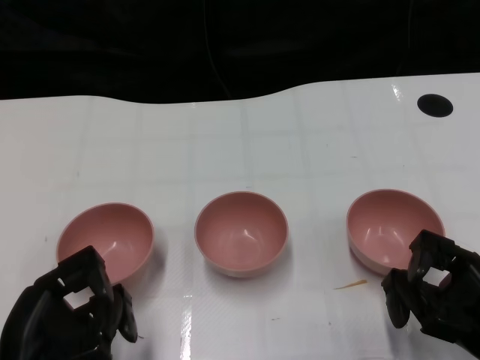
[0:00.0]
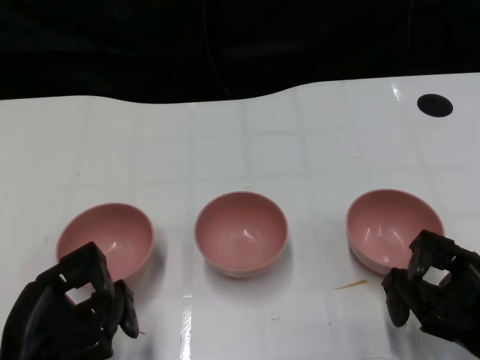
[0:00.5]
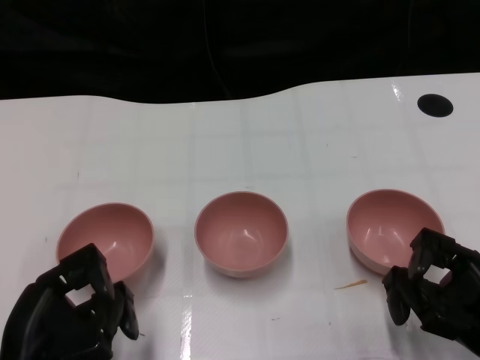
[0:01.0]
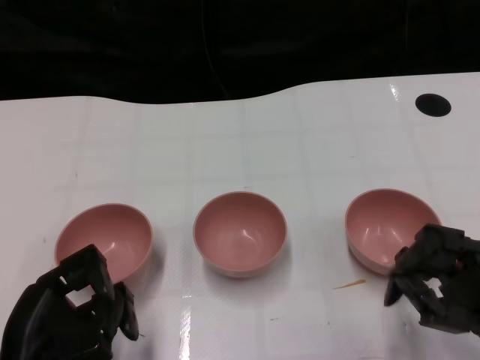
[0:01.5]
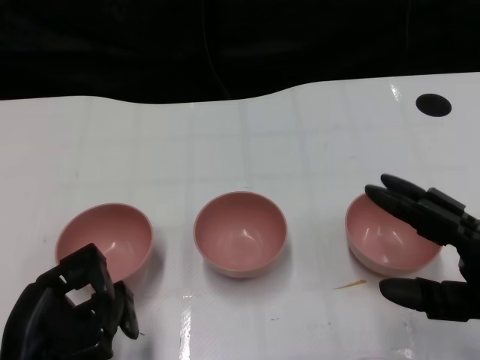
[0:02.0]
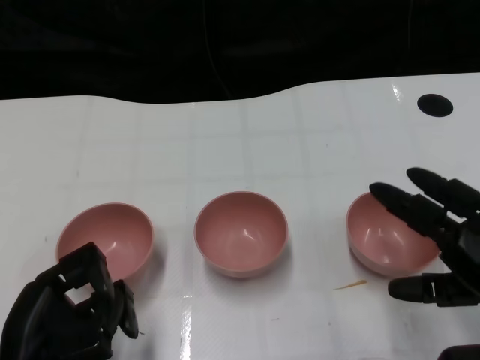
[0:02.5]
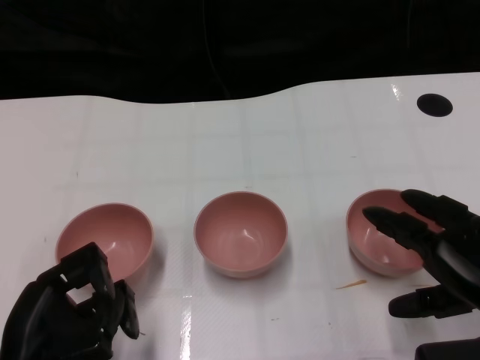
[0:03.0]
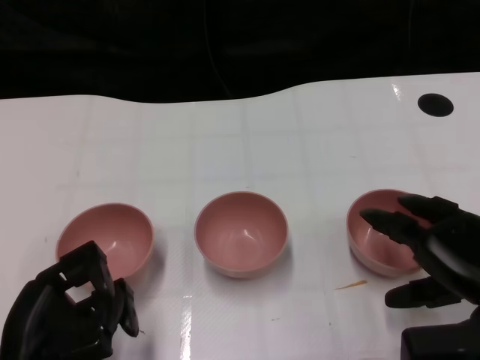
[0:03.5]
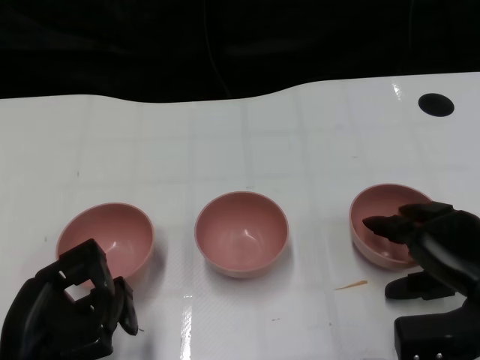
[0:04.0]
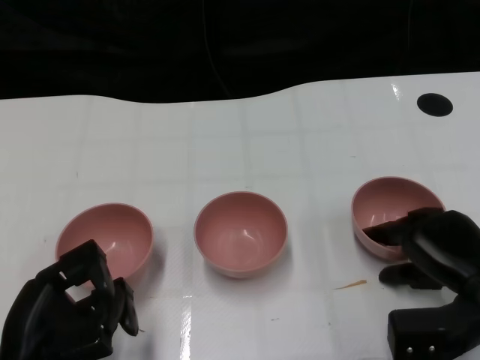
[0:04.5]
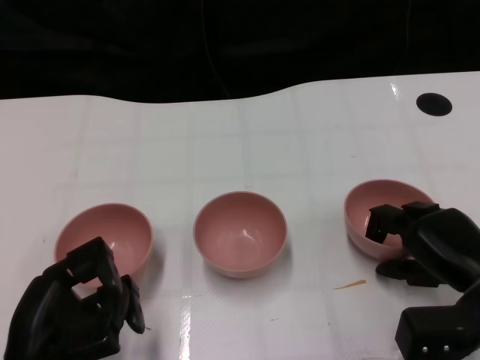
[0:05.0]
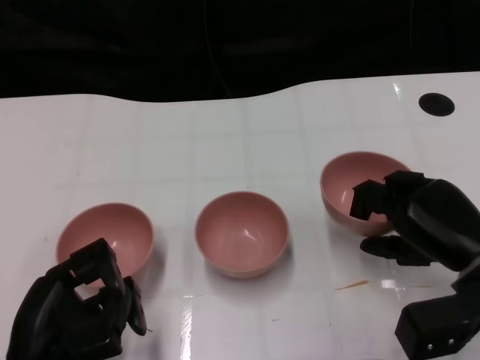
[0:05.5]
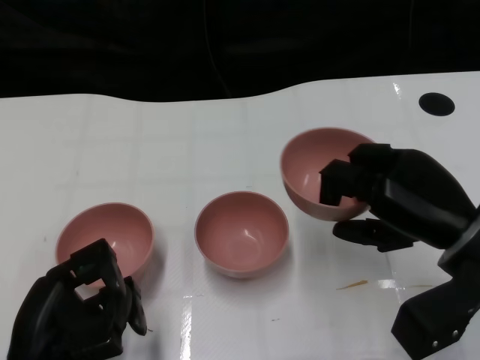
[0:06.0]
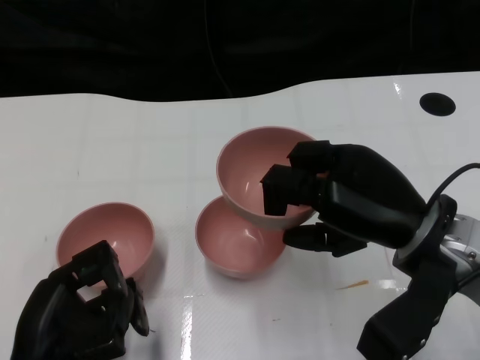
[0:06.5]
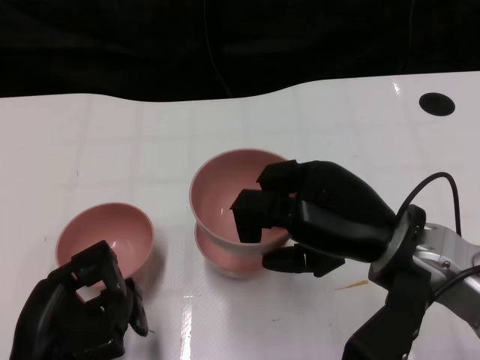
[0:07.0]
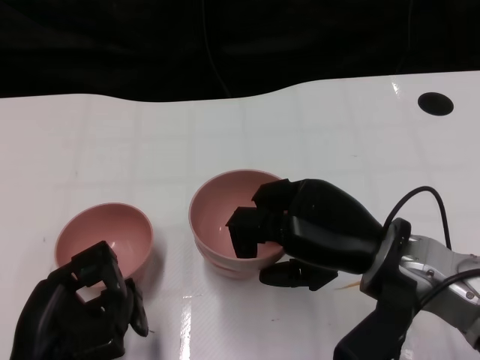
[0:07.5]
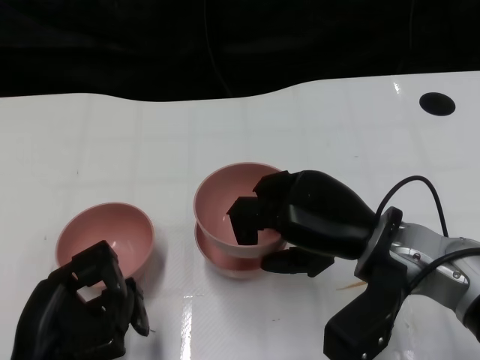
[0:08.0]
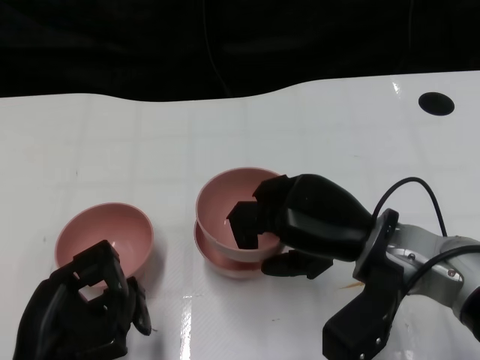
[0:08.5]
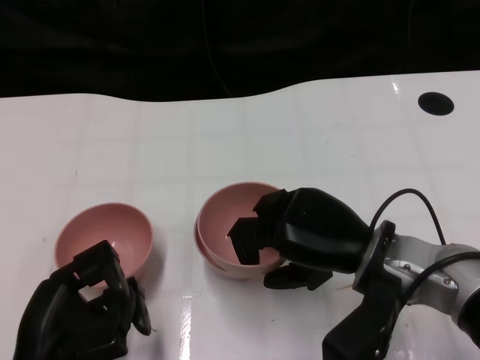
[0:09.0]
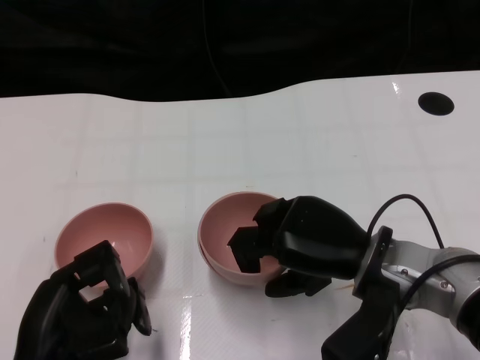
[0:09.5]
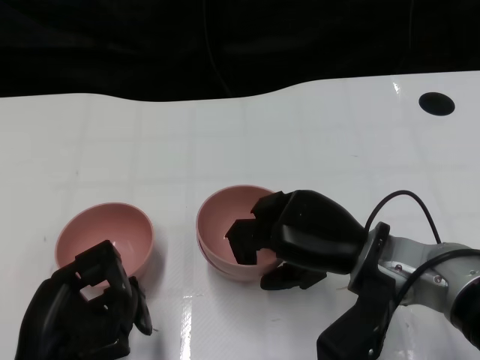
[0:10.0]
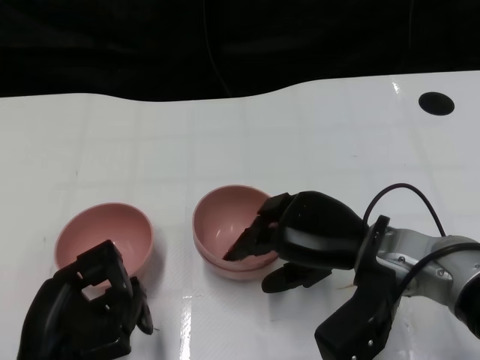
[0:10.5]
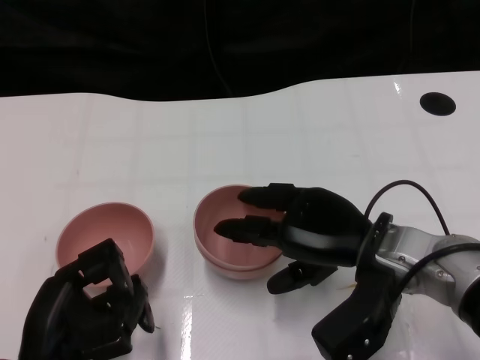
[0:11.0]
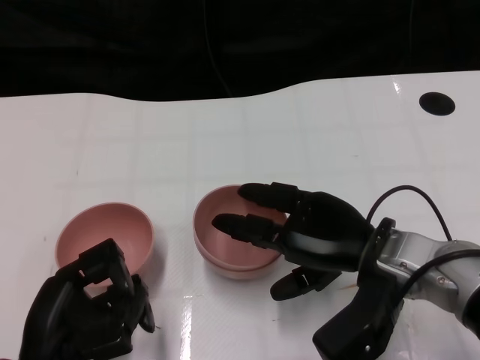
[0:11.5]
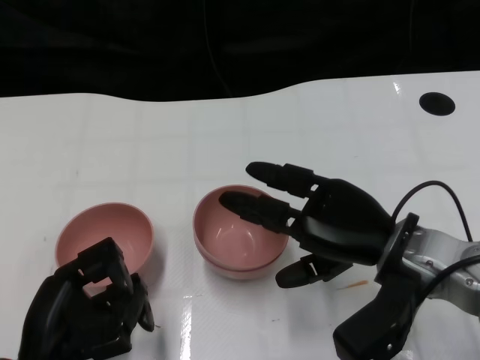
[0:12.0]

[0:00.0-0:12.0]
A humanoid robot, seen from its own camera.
Task of the whole recording: Pick up the bowl on one side of the table and place it on top of the middle bowl, then pick up the bowl on the other side of the table and place it on top of the middle bowls.
Step, 0:01.5 to 0:05.0: Grasp the bowl on the right with the right gripper.
0:02.0 to 0:04.0: The right hand heads forward, covering roughly 5 cm.
0:04.0 to 0:06.0: The right hand moves upward, approximately 5 cm.
0:06.0 to 0:08.0: The right hand travels to the left by roughly 10 cm.
0:08.0 to 0:10.0: The hands move only a little.
0:10.0 to 0:12.0: There are only small adjustments of the hands.

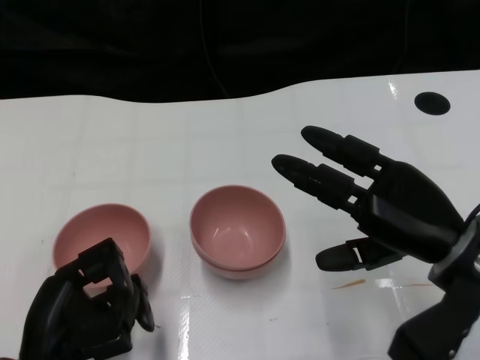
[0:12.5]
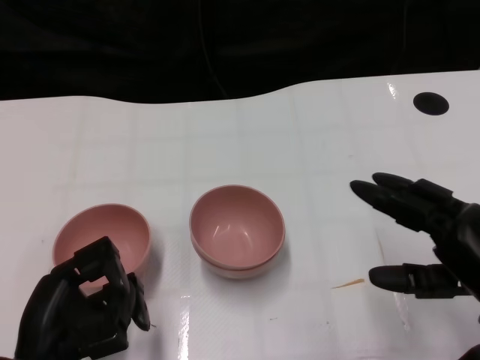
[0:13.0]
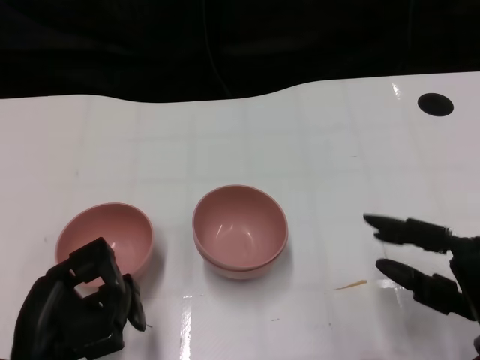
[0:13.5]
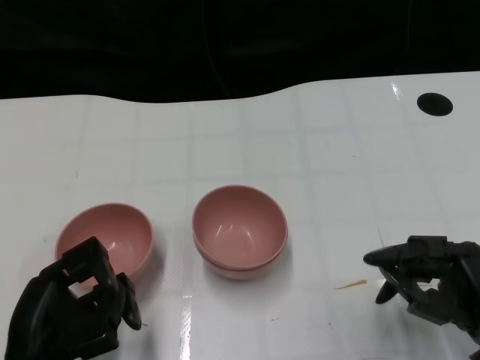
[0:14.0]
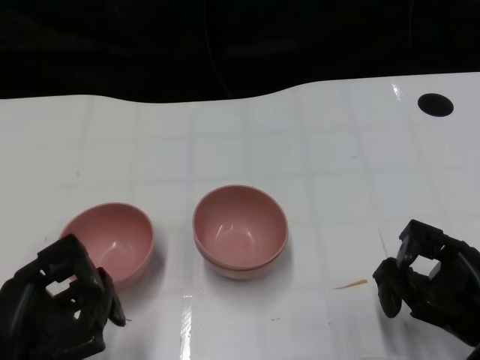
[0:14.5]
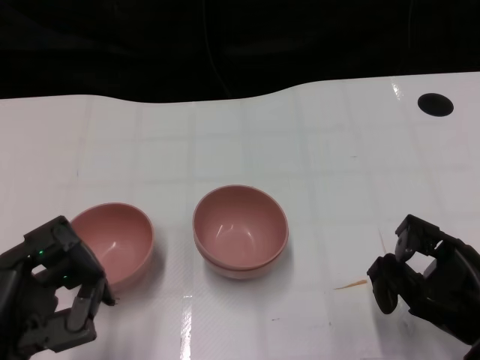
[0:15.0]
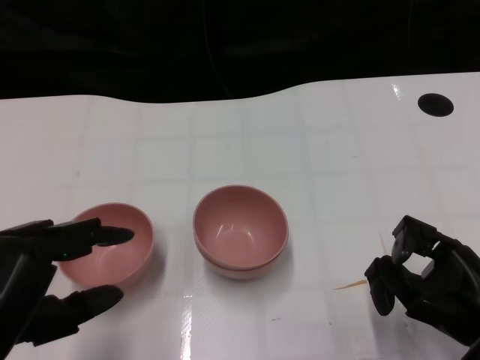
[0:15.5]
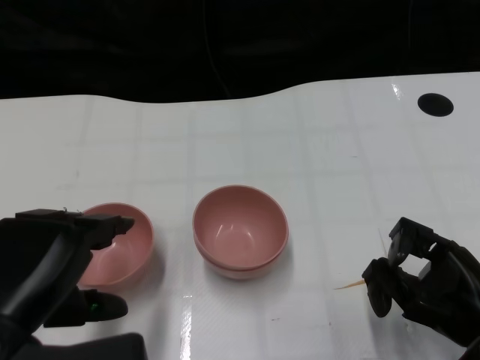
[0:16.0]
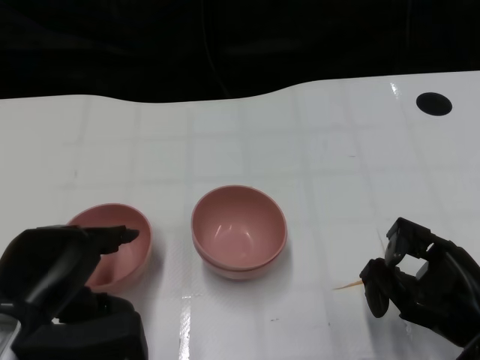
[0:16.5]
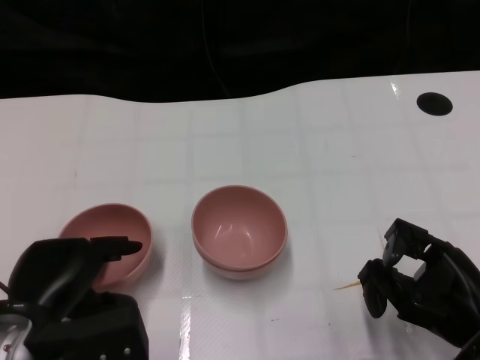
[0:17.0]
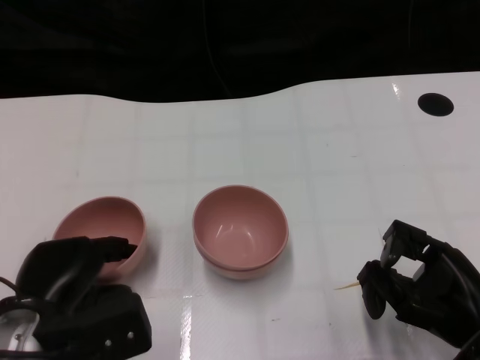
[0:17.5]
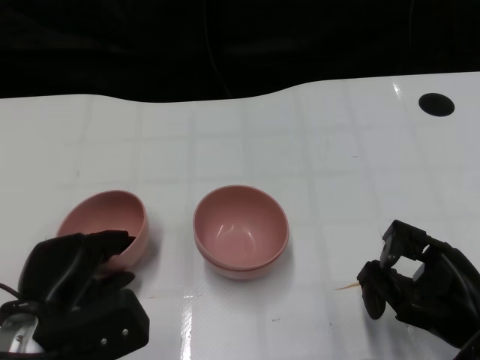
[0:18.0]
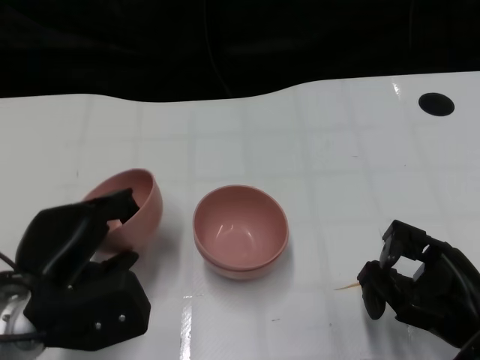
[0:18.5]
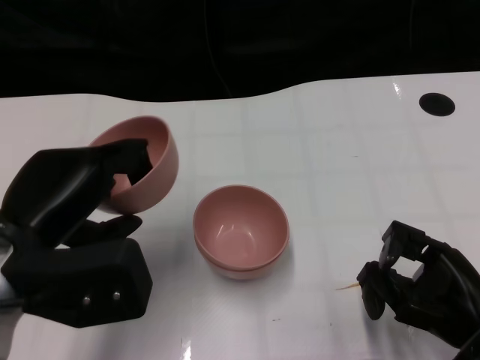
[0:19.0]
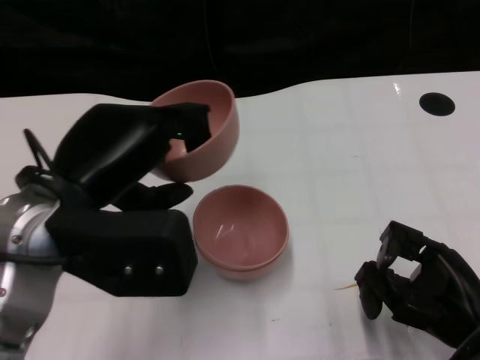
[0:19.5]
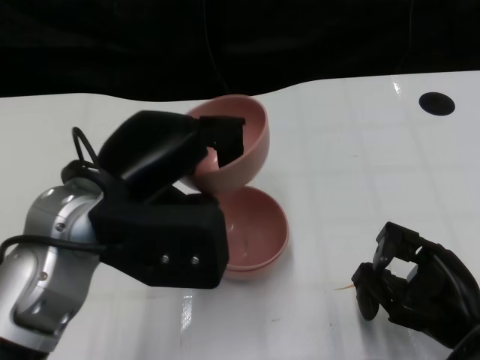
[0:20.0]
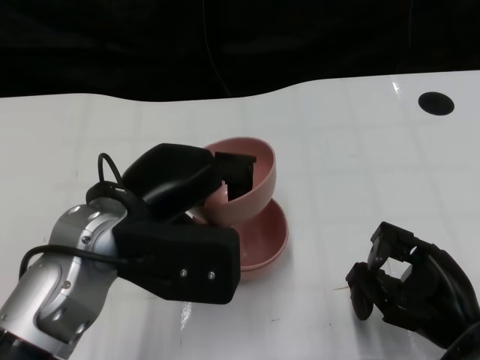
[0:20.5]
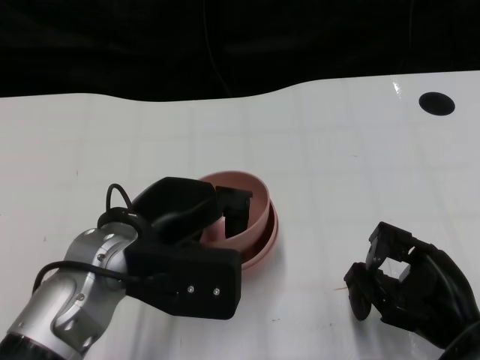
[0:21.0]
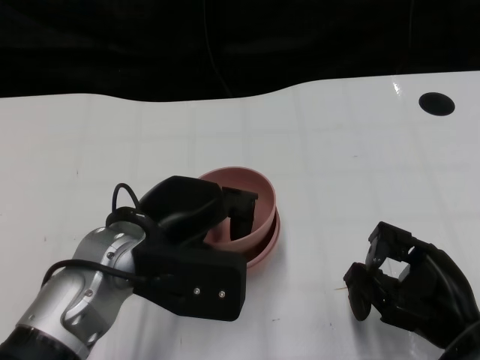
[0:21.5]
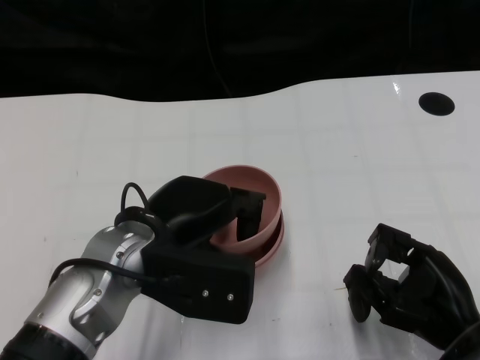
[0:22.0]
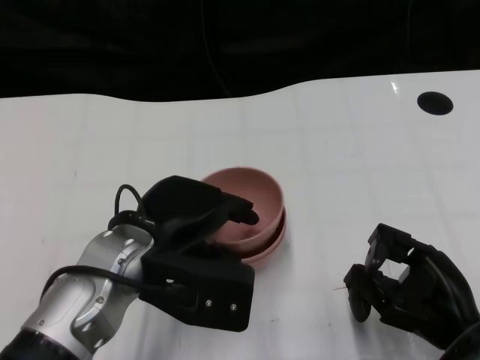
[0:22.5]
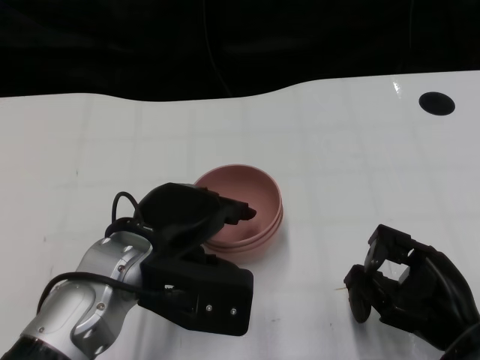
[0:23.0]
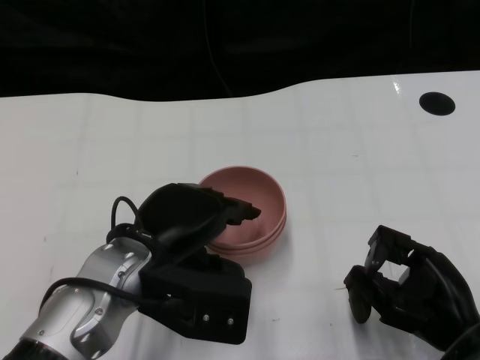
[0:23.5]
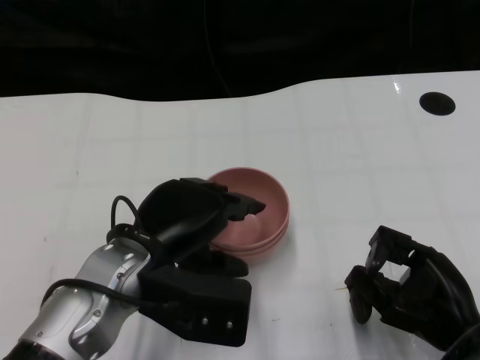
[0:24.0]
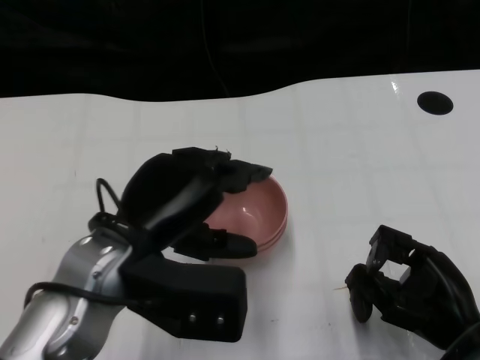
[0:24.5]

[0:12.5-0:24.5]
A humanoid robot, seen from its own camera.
Task of the whole recording: Pick up the bowl on one side of the table and place it on top of the middle bowl, then pick up the bowl on the other side of the table and place it on top of the middle bowls.
Step, 0:12.5 to 0:18.0: Grasp the bowl on the left with the left gripper.
0:12.5 to 0:14.5: The right hand heads downward and backward, covering approximately 10 cm.
0:18.5 to 0:20.5: The left hand moves upward and to the right, about 10 cm.
0:20.5 to 0:24.5: The hands make only small movements.

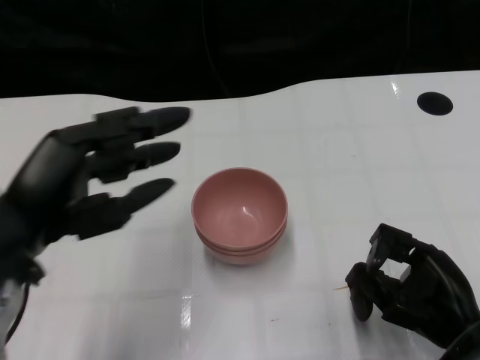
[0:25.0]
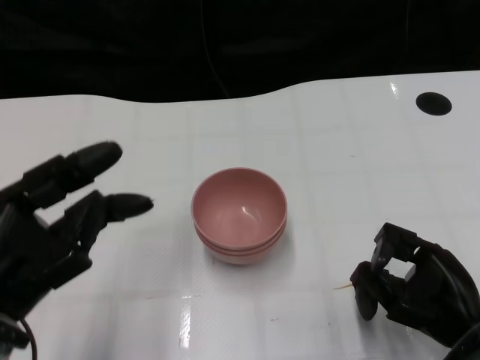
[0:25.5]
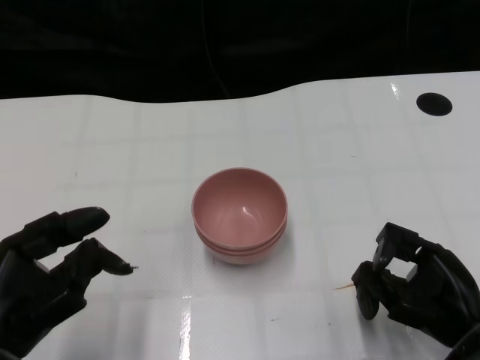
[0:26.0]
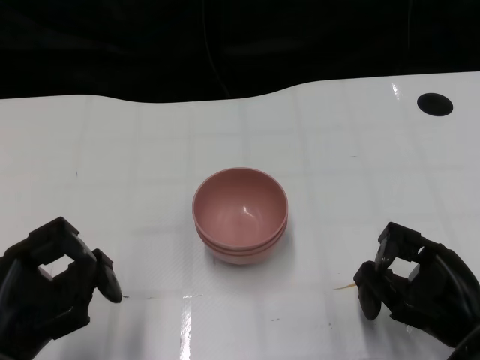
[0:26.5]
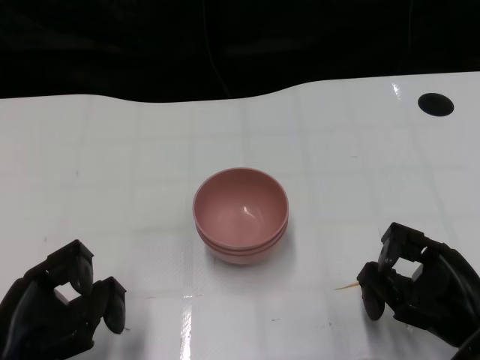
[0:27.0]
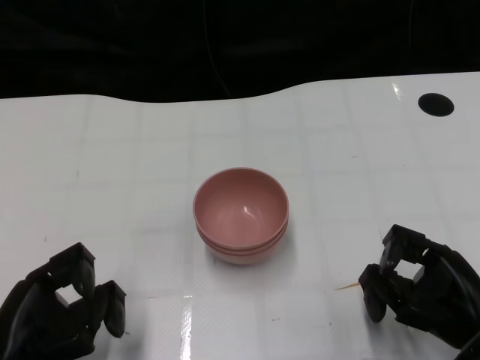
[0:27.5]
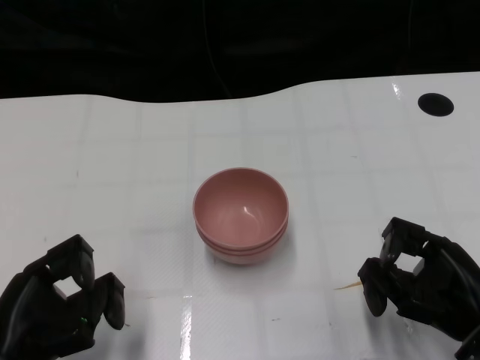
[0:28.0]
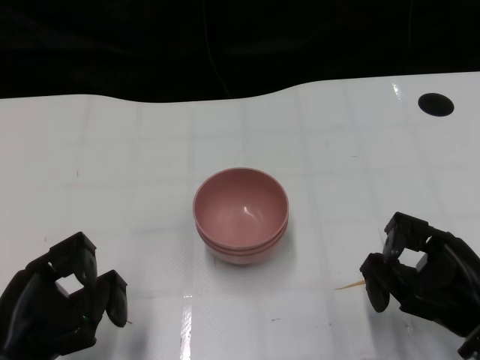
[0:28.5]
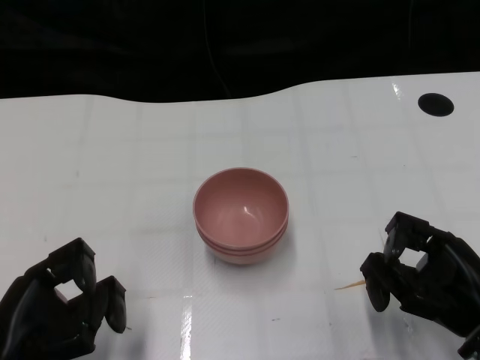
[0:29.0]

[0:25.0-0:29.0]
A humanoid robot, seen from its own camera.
Task of the whole recording: Pick up the bowl on one side of the table and place it on top of the middle bowl, then pick up the bowl on the other side of the table and place it on top of the middle bowls.
0:25.0 to 0:27.0: The left hand shifts some 15 cm downward.
0:27.0 to 0:29.0: Neither hand changes place.
